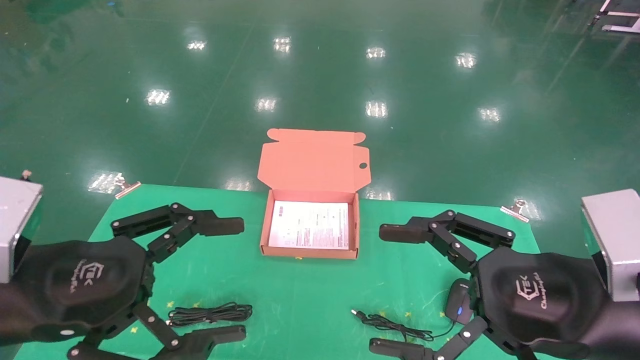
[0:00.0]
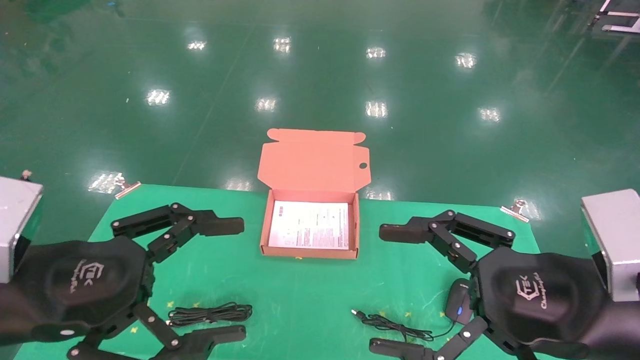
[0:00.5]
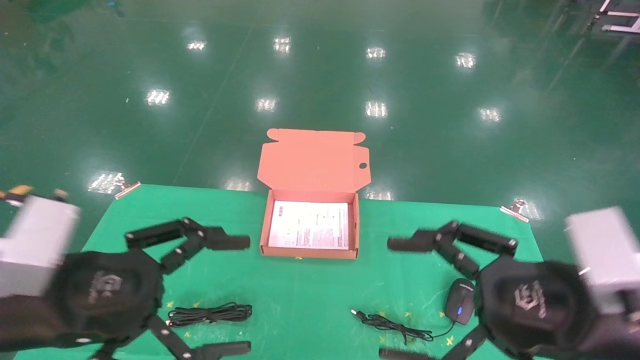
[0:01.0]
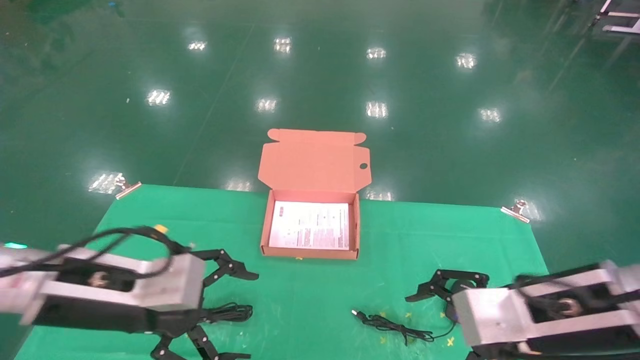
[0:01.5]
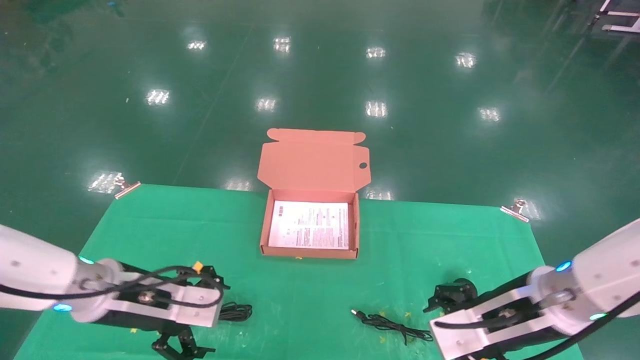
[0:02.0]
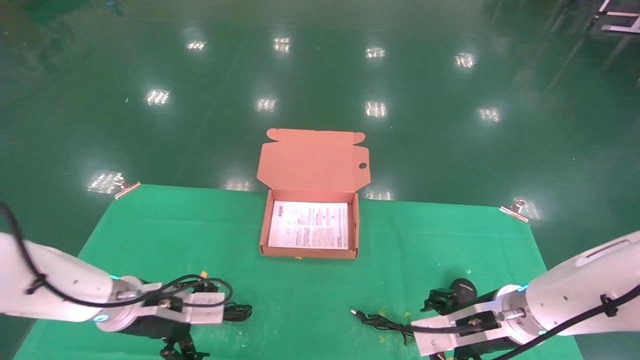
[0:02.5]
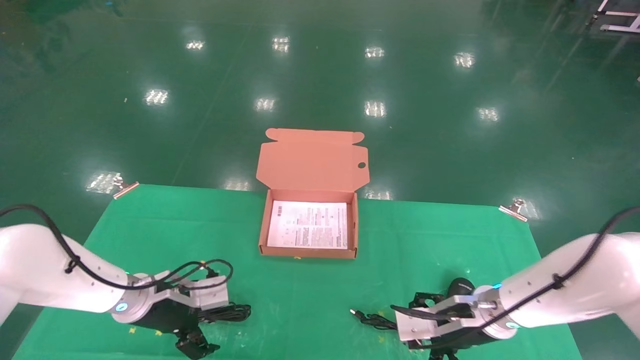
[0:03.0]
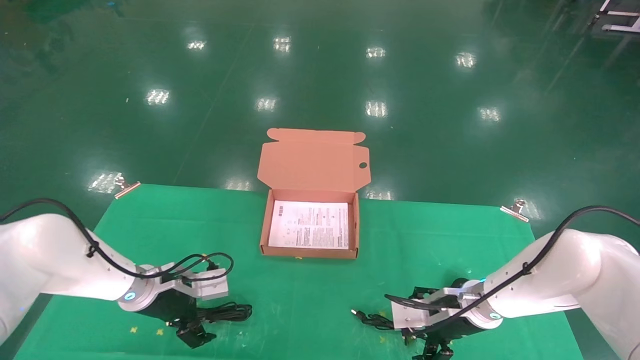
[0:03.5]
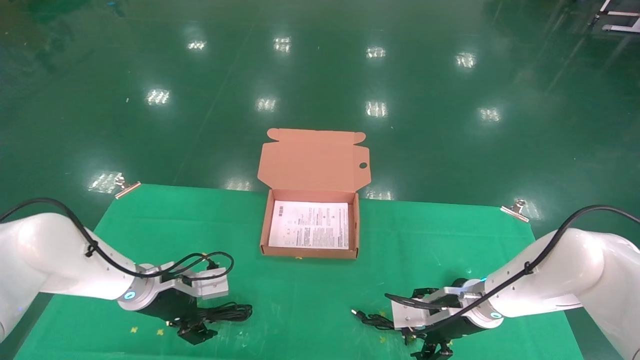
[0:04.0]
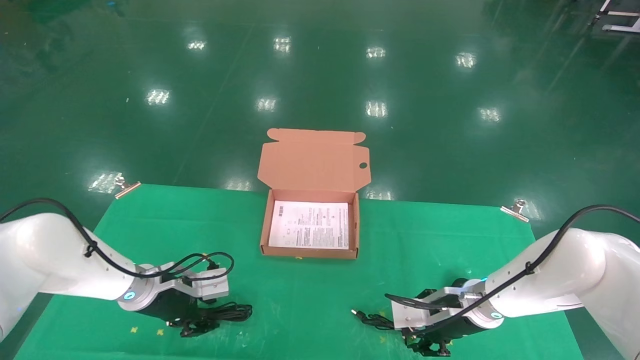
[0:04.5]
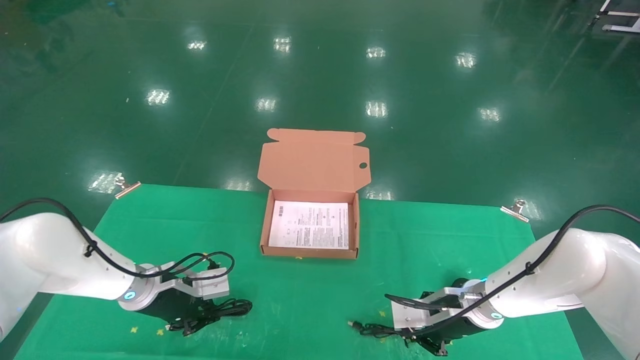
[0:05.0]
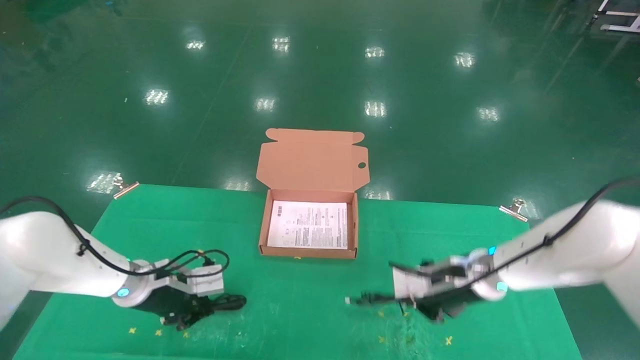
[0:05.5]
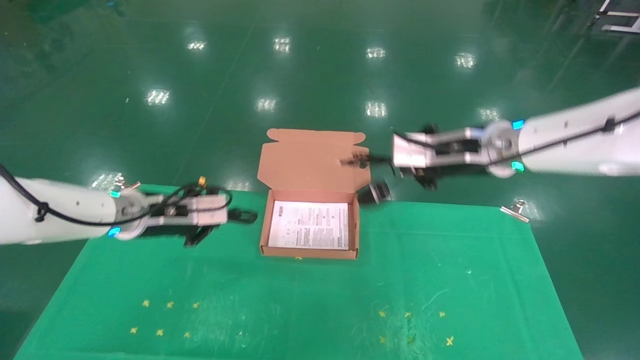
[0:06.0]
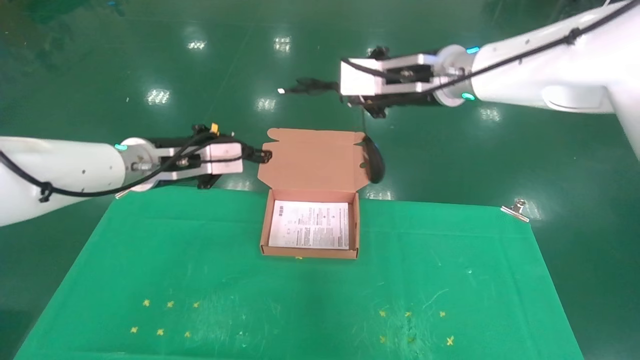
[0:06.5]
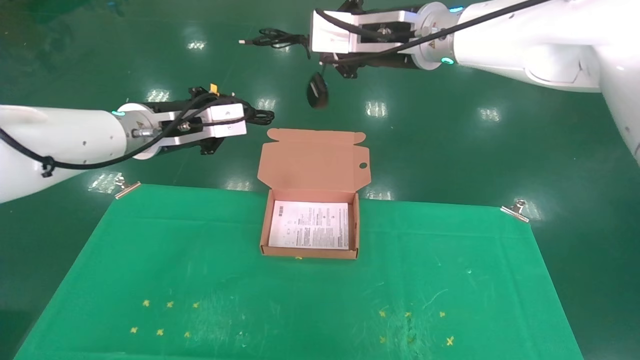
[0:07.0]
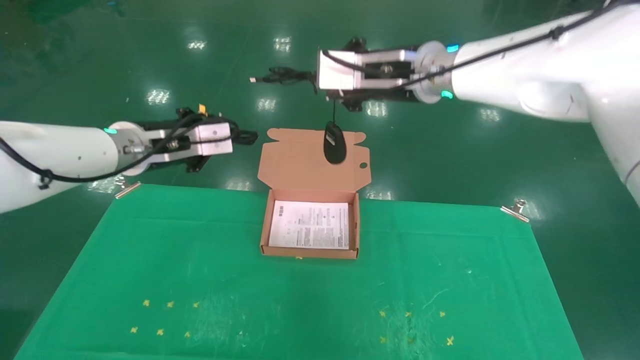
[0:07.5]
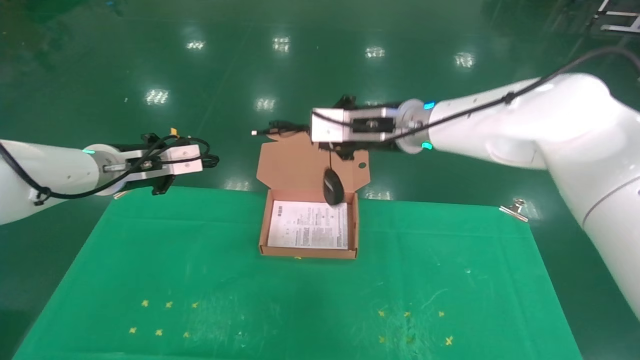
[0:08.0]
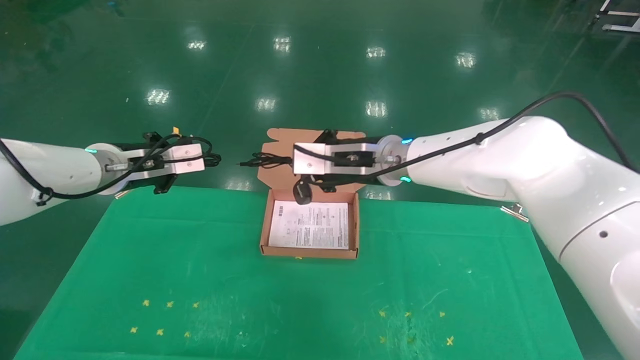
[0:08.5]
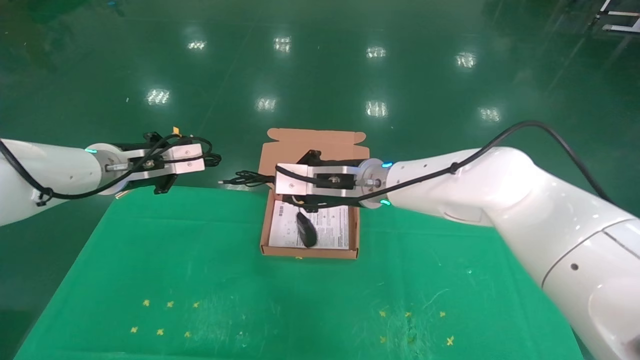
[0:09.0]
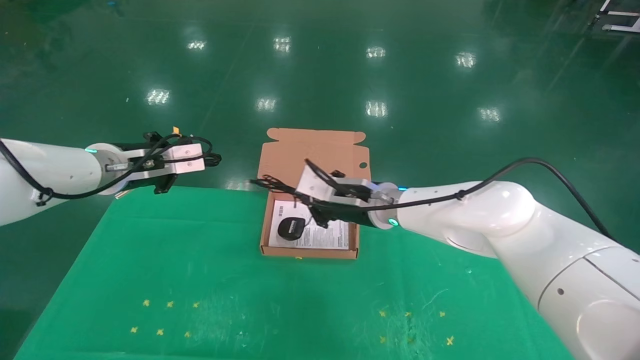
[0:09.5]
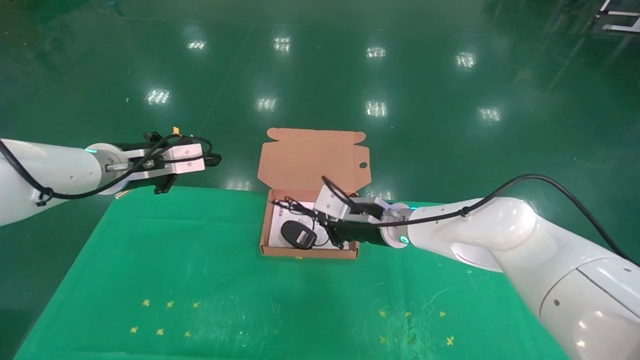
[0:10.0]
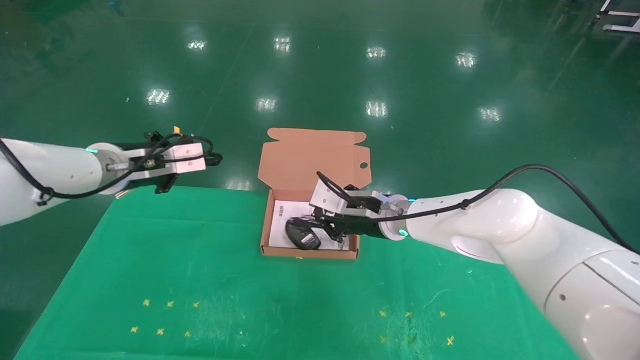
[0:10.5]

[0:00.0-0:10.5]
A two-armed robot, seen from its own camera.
Task of the whole recording: grasp data cable left put into box grasp mouse right put into box.
Step, 0:01.0 to 0:05.0: Grab and pick up both the mouse and power cord from the accessory packaging area at the same time.
0:00.0 to 0:02.0: The two grippers go roughly 15 cm forward and downward.
0:02.0 to 0:04.0: Both grippers move forward and downward, some 15 cm.
0:04.0 to 0:06.5: The right gripper is displaced upward by roughly 35 cm, and closes, while the left gripper travels upward by approximately 20 cm, and closes its fingers.
0:06.5 to 0:08.5: The right gripper goes about 15 cm downward and to the left. Meanwhile the left gripper shifts approximately 5 cm to the left.
0:08.5 to 0:10.5: The right gripper heads downward, covering about 10 cm.

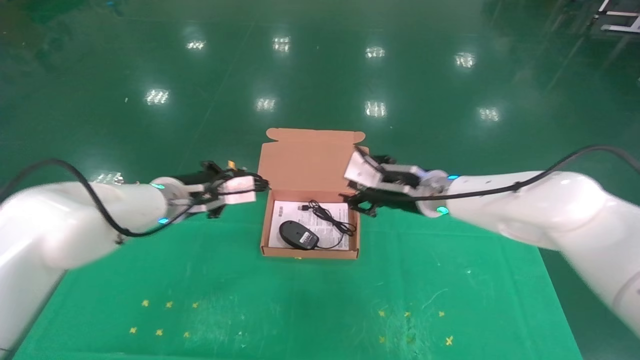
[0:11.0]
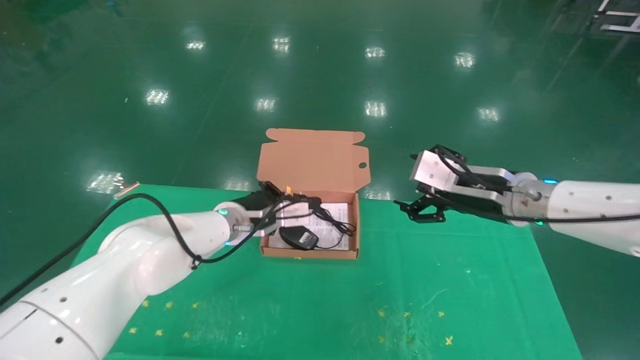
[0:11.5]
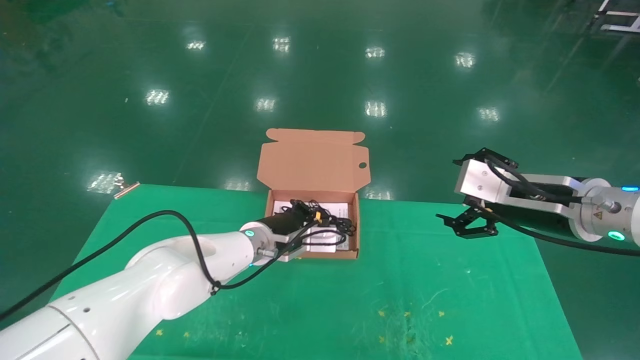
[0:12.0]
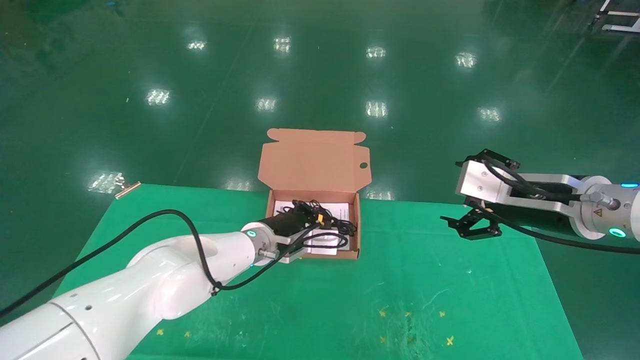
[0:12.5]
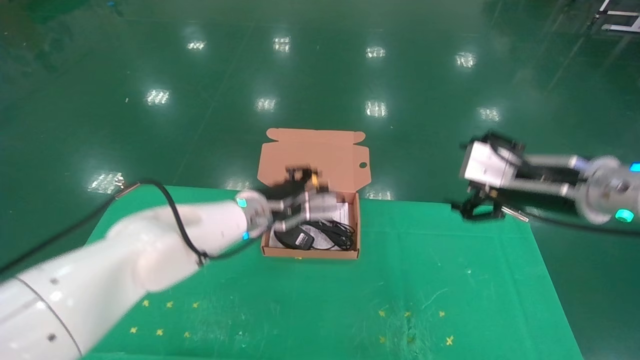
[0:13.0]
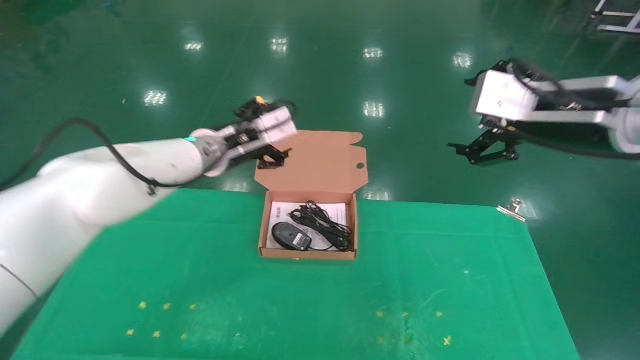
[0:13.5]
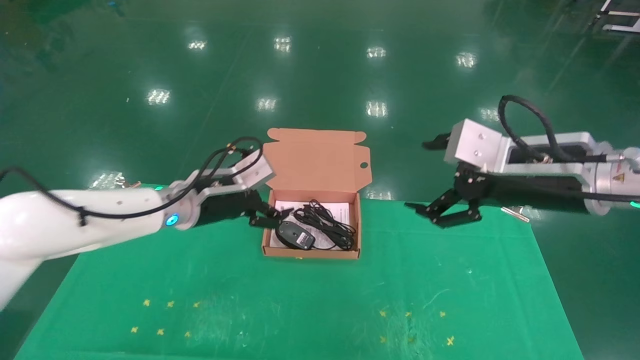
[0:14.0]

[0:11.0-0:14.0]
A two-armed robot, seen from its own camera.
Task of the whole recording: grasp data cable left put into box grasp mouse right put into box.
0:11.0 to 0:12.5: The left gripper moves to the right and downward, roughly 15 cm. The right gripper shifts roughly 15 cm to the right and backward, and opens up.
0:12.5 to 0:14.0: The right gripper shifts by approximately 5 cm. Meanwhile the left gripper is displaced to the left and upward by roughly 15 cm, and opens up.

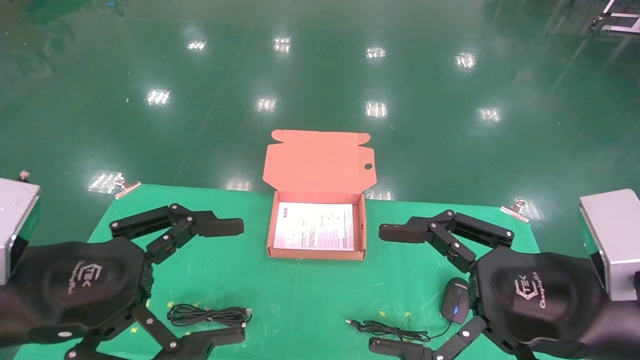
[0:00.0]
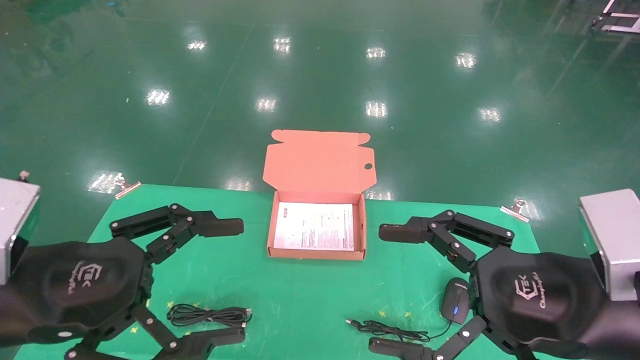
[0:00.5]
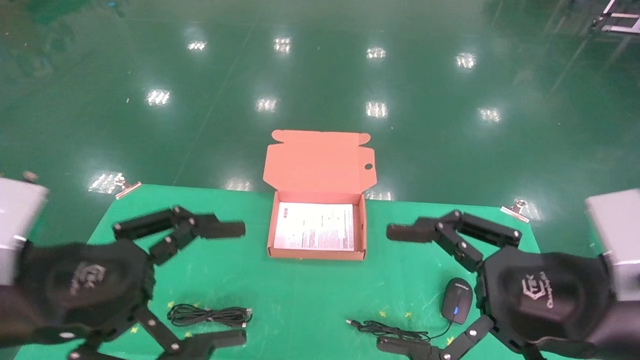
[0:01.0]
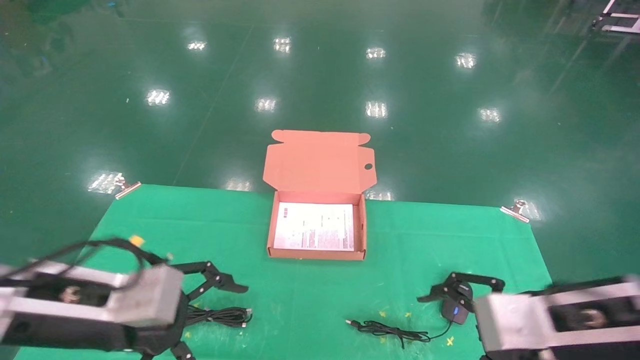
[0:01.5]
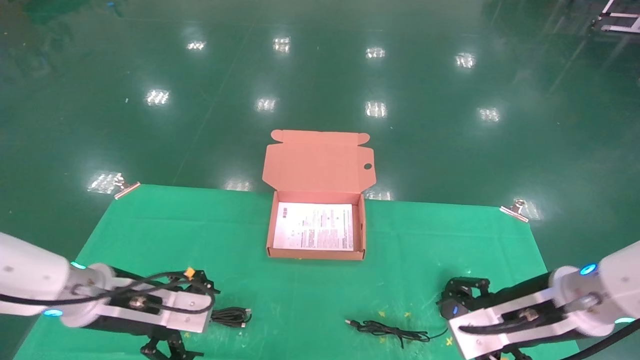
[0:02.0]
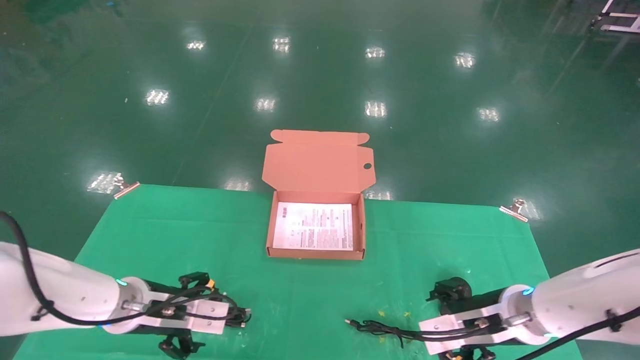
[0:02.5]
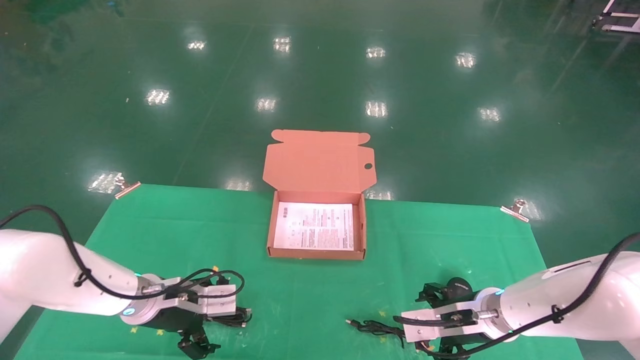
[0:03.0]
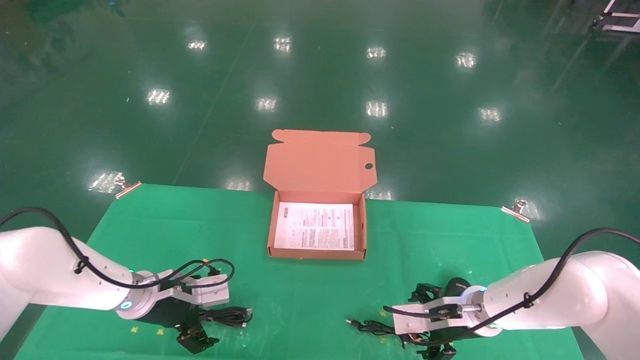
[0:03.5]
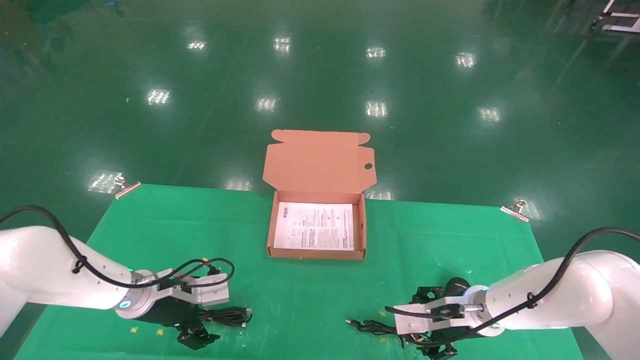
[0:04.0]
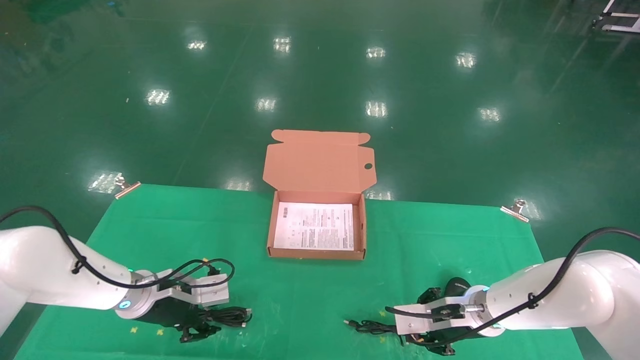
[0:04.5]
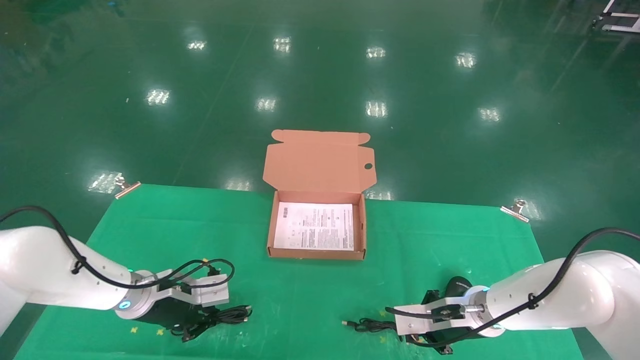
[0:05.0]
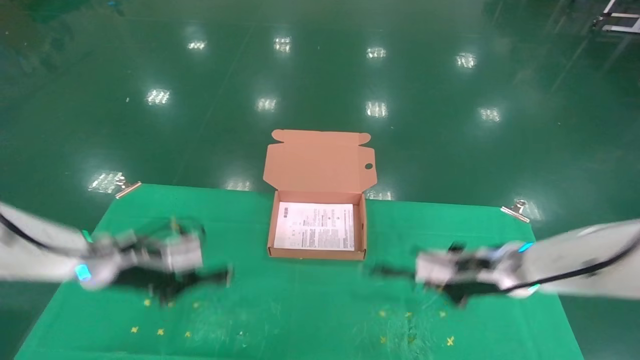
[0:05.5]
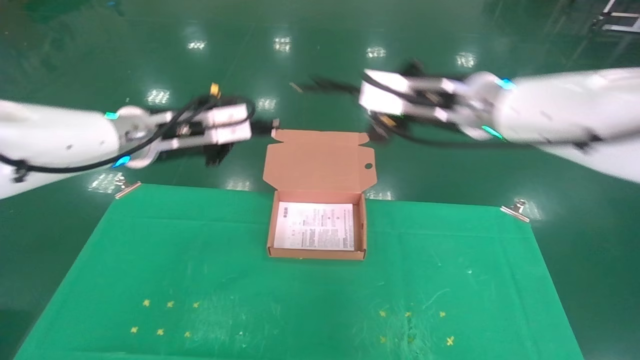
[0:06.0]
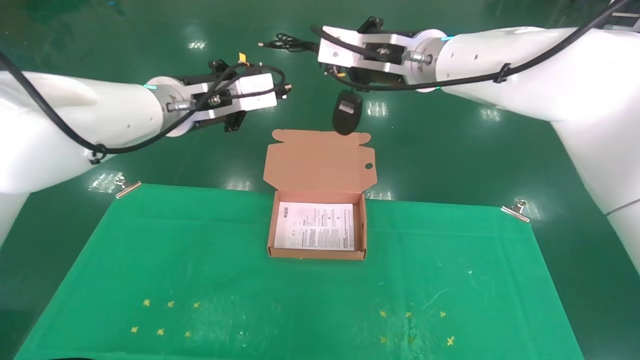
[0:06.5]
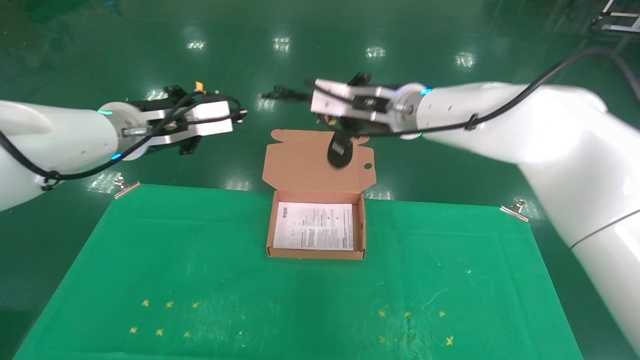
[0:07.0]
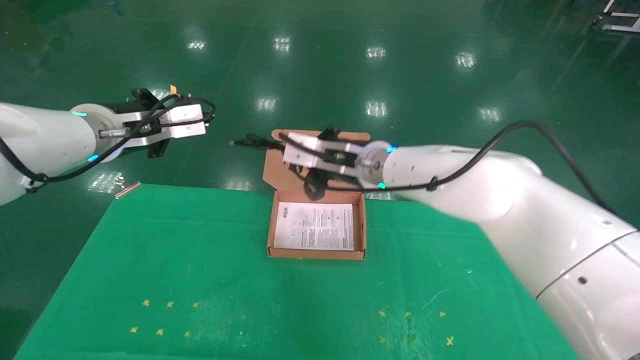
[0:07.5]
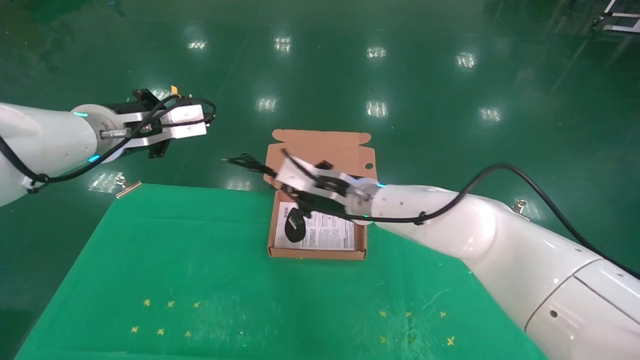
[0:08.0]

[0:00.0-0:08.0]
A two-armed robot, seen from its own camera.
Task of the whole recording: grasp data cable left put into box grasp mouse right put into box.
Step, 0:01.5 to 0:06.0: Grab and pick up both the mouse and power cord from the accessory packaging area at the same time.
0:00.0 to 0:02.0: Both grippers move forward and downward, about 15 cm.
0:02.0 to 0:04.0: The grippers both shift forward and downward by roughly 15 cm.
0:04.0 to 0:06.0: Both grippers travel together upward, some 25 cm. The left gripper closes up; the right gripper closes.
0:06.0 to 0:08.0: The right gripper moves downward, to the left and forward, about 20 cm.
